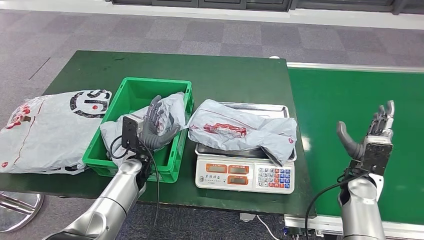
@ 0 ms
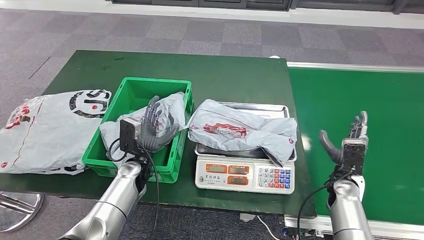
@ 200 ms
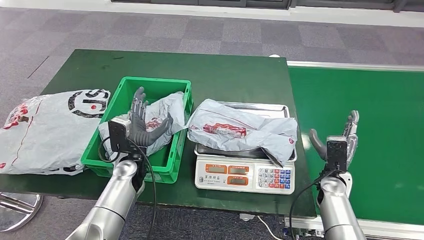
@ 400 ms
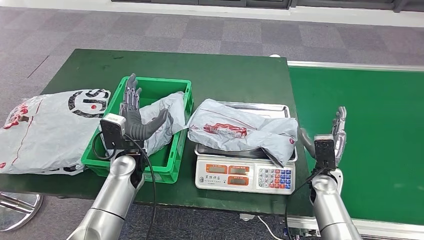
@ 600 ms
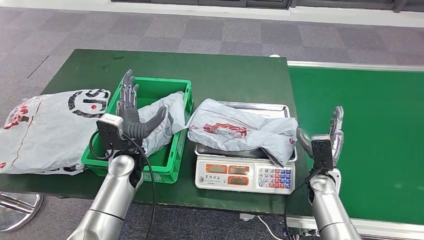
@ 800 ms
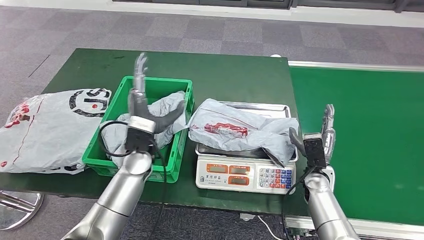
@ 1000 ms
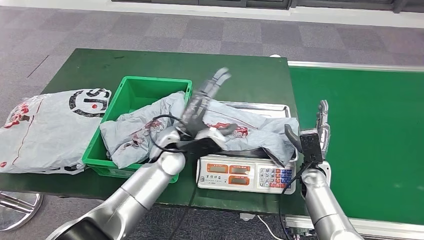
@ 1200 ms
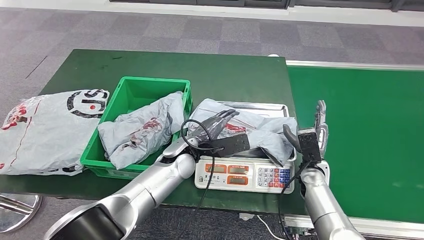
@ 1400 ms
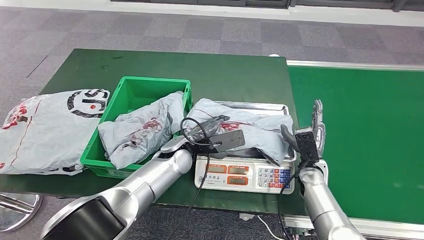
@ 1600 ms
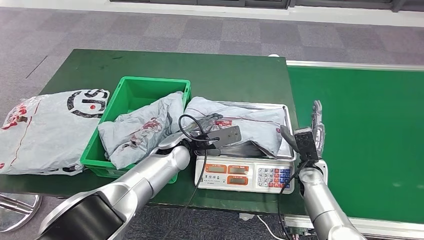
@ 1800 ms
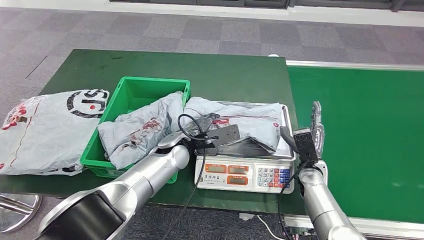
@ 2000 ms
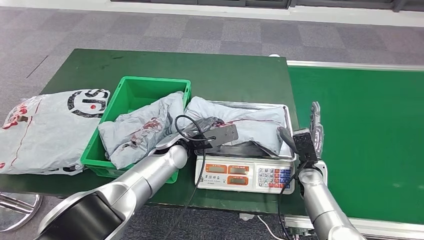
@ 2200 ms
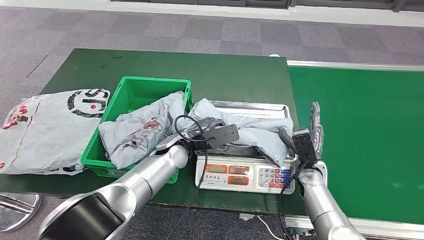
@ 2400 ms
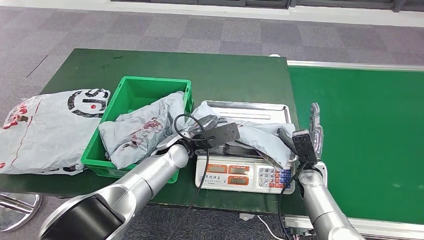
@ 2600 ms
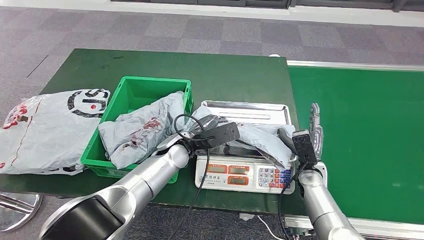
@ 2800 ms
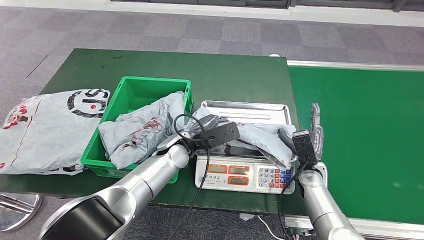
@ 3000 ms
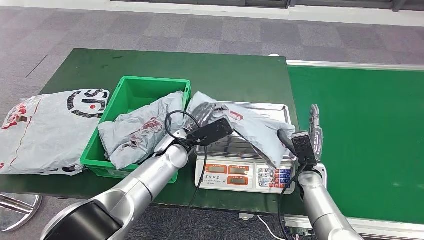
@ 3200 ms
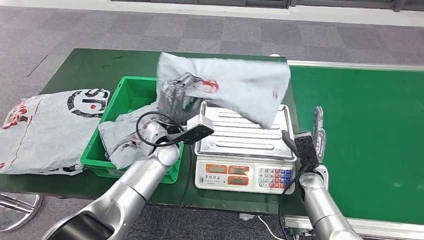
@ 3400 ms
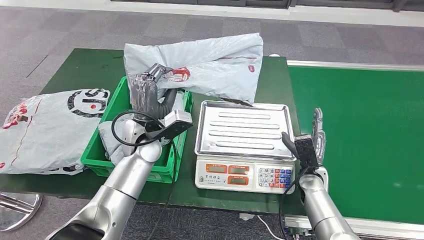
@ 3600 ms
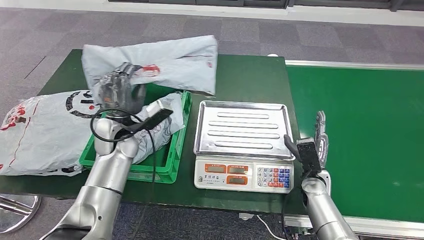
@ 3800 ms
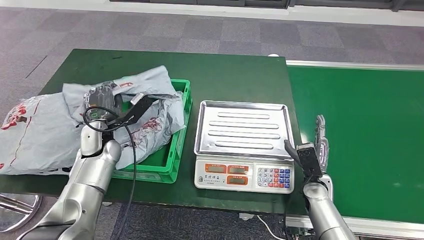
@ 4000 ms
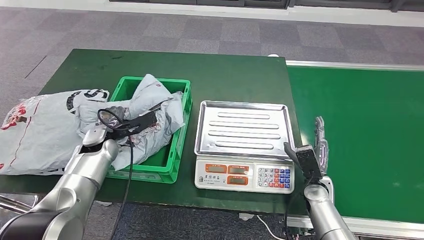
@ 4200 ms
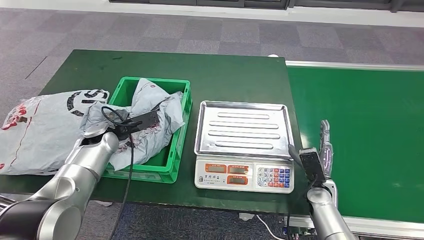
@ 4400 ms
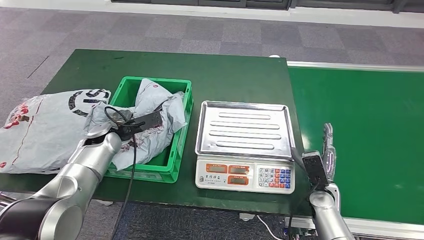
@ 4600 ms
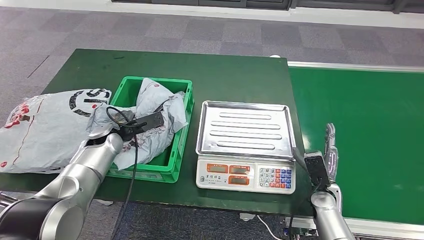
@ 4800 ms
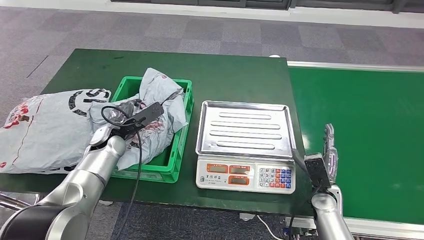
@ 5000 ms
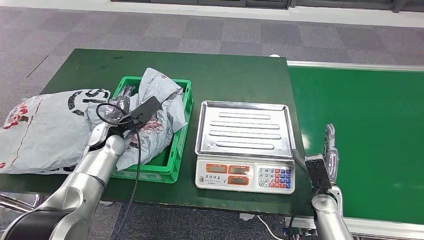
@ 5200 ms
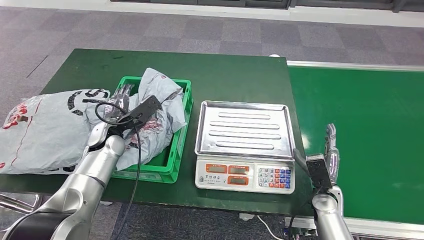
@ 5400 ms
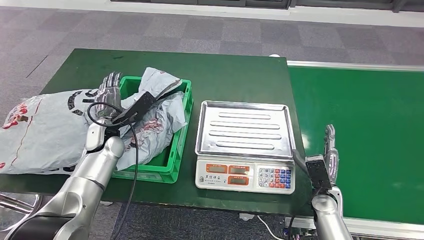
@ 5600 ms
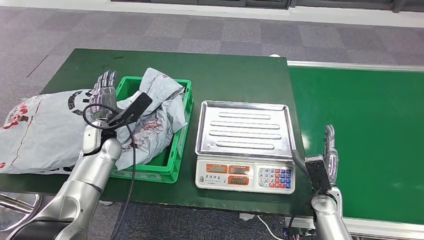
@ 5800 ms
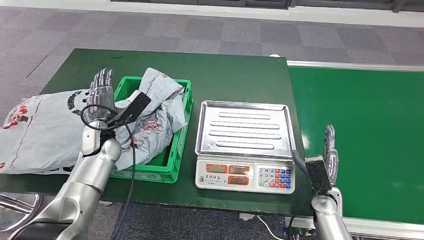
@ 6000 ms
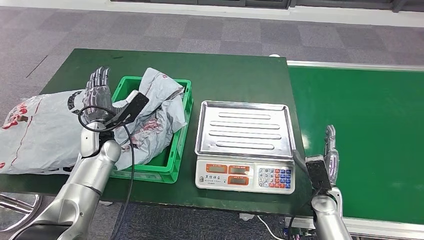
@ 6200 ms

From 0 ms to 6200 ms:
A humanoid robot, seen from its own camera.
Step, from 400 ms to 3800 ms: Pick up the parcel from the inbound machine.
Step, from 4200 ms to 6200 ms: Place the parcel into the delivery box.
